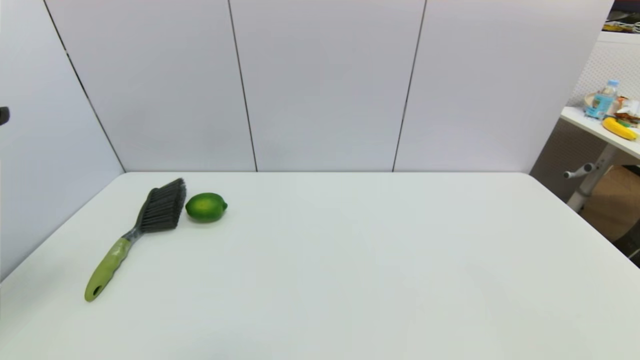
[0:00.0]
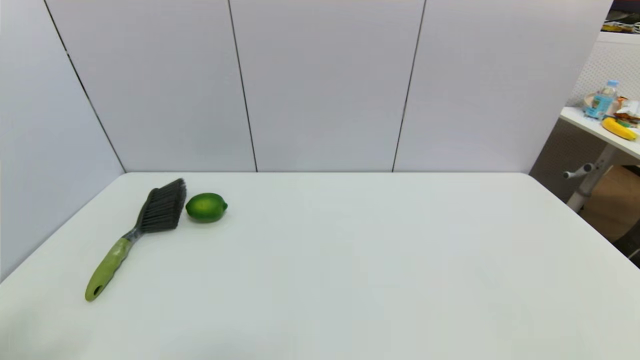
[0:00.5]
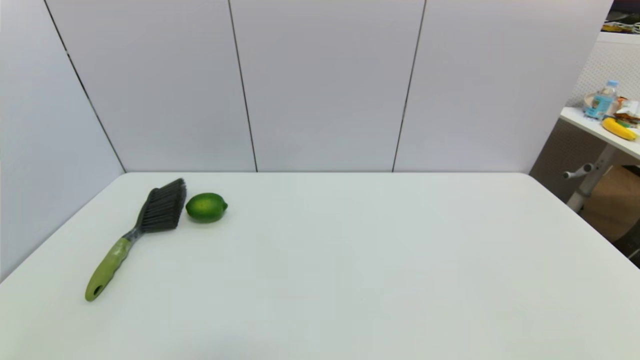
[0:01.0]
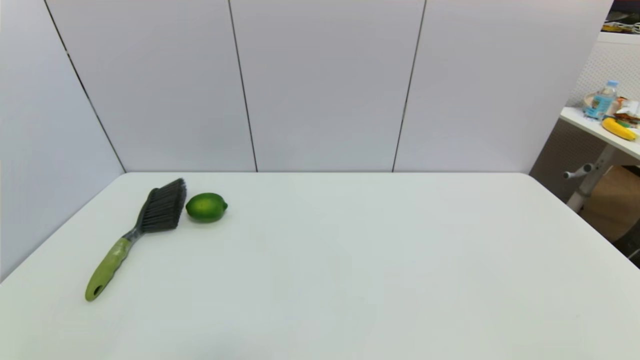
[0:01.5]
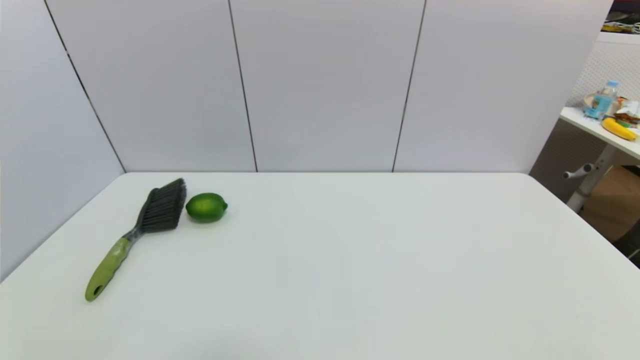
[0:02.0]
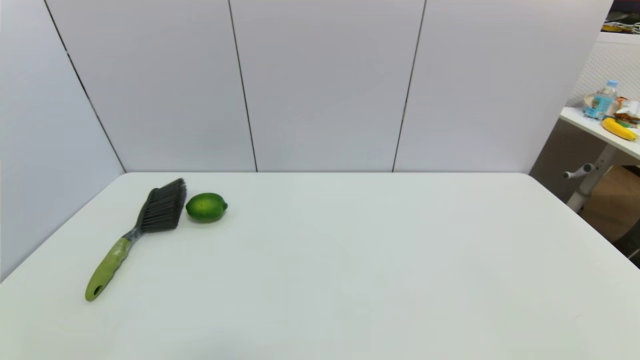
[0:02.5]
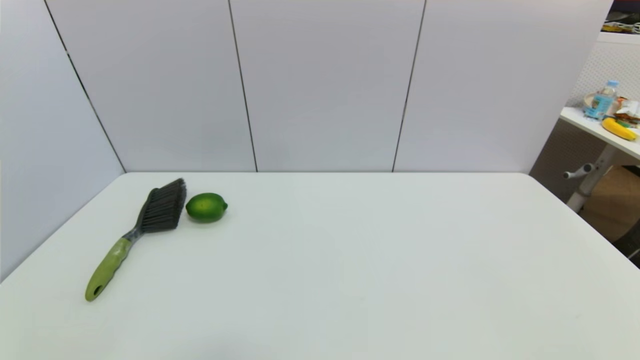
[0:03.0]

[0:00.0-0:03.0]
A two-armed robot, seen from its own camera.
Task of the whole recording: put the brush in the designated position.
0:00.0 to 0:01.5: The left gripper travels downward and backward by about 30 cm.
0:01.5 to 0:03.0: Both grippers stay about where they are.
